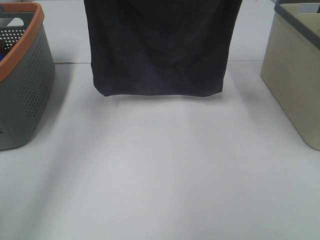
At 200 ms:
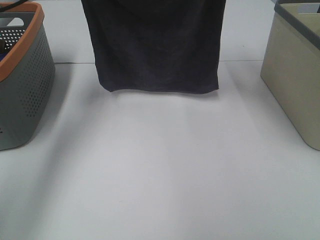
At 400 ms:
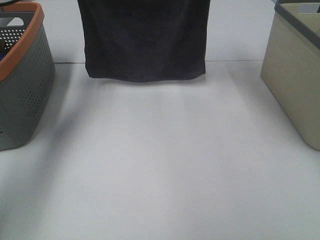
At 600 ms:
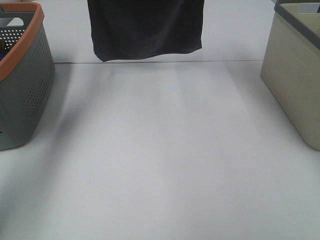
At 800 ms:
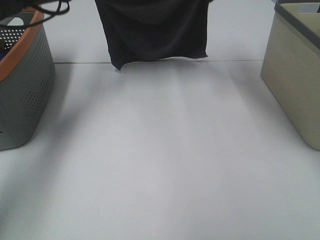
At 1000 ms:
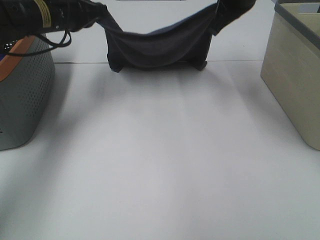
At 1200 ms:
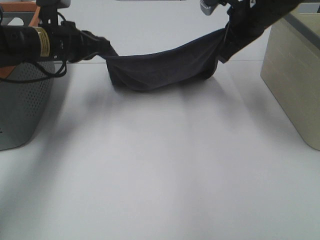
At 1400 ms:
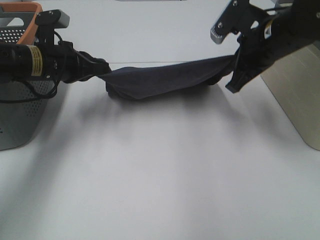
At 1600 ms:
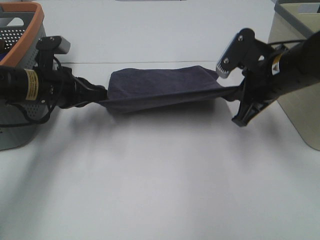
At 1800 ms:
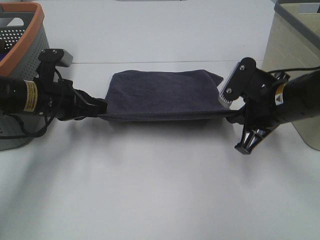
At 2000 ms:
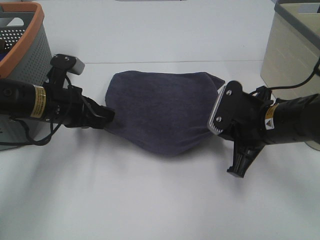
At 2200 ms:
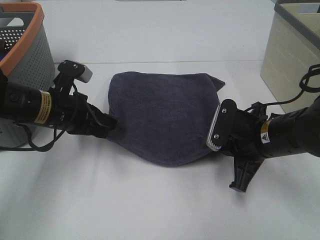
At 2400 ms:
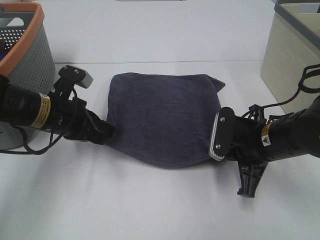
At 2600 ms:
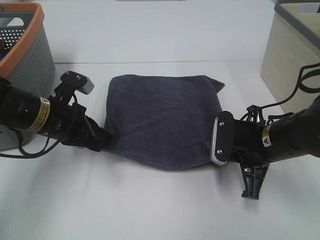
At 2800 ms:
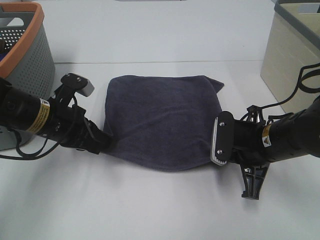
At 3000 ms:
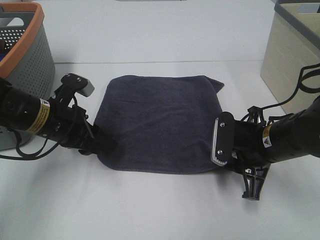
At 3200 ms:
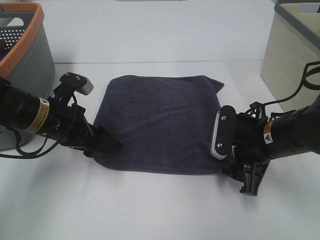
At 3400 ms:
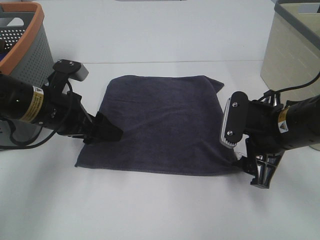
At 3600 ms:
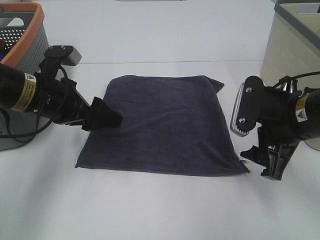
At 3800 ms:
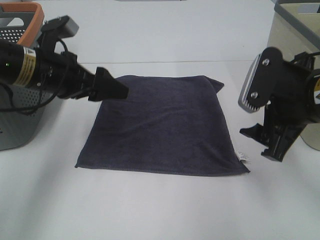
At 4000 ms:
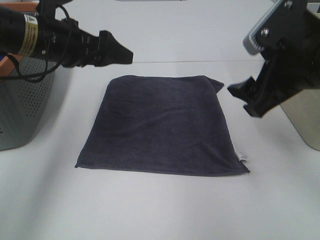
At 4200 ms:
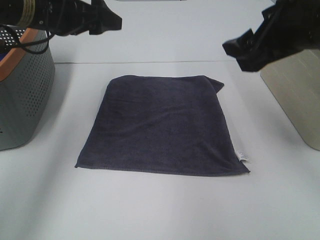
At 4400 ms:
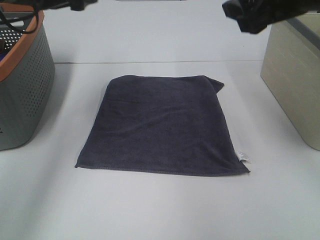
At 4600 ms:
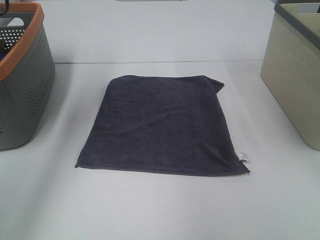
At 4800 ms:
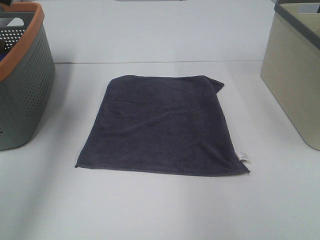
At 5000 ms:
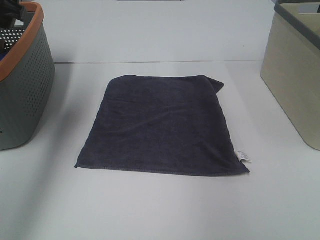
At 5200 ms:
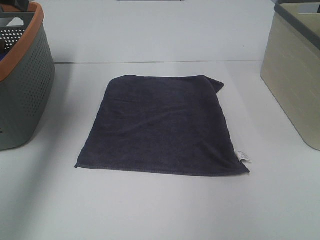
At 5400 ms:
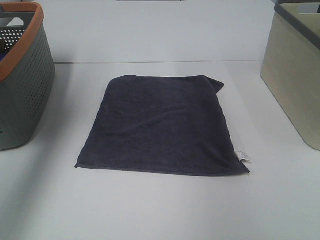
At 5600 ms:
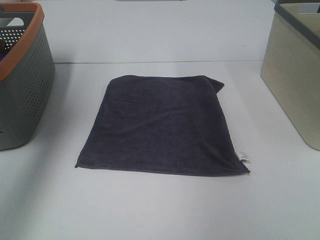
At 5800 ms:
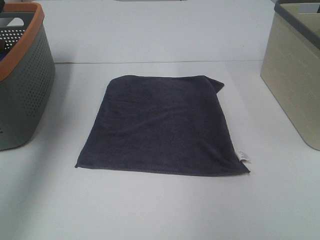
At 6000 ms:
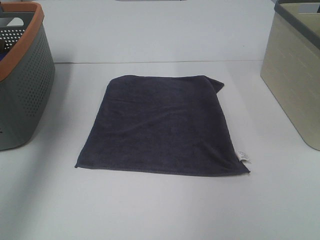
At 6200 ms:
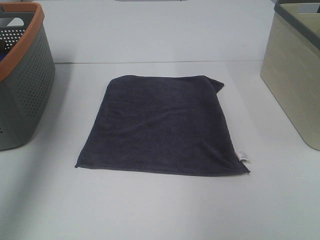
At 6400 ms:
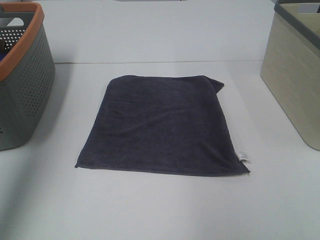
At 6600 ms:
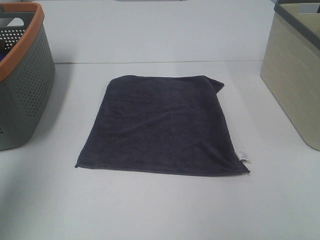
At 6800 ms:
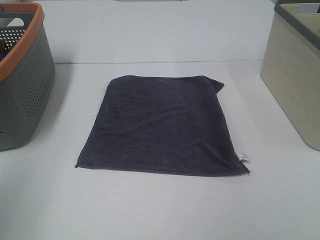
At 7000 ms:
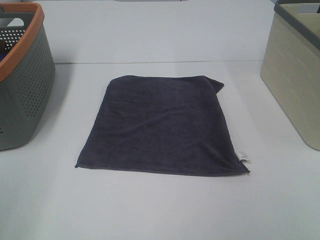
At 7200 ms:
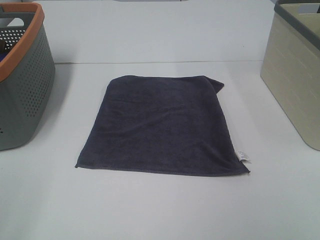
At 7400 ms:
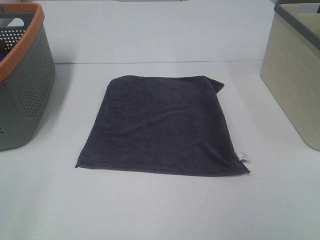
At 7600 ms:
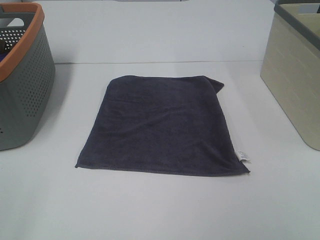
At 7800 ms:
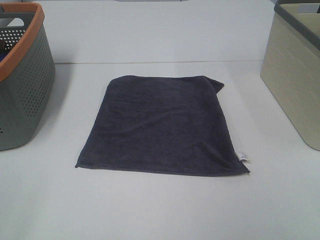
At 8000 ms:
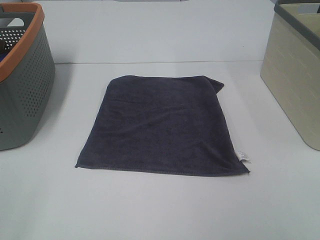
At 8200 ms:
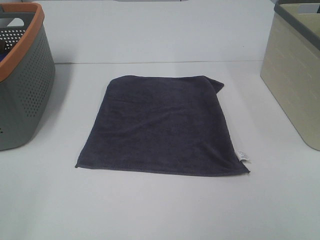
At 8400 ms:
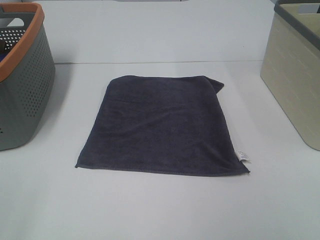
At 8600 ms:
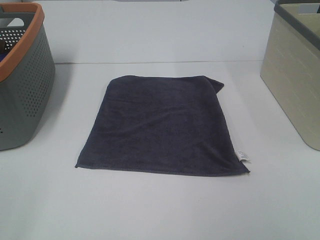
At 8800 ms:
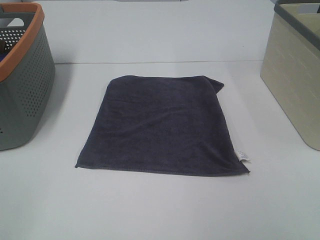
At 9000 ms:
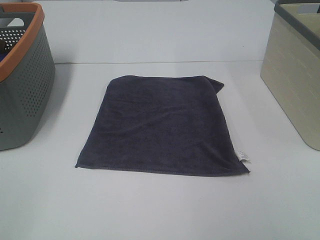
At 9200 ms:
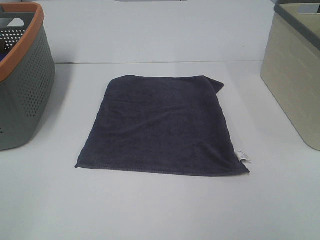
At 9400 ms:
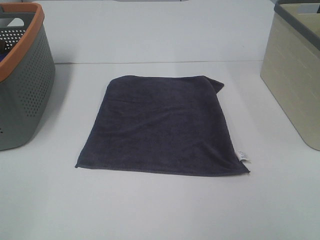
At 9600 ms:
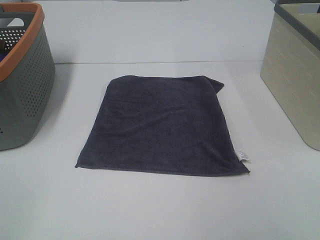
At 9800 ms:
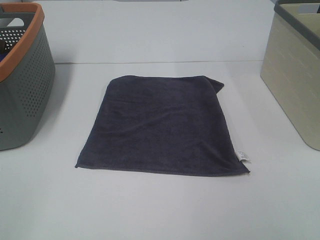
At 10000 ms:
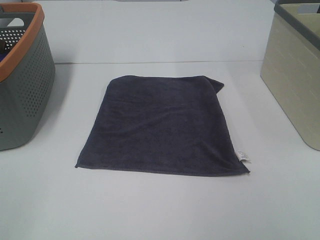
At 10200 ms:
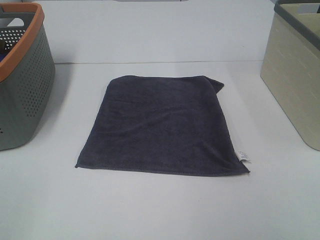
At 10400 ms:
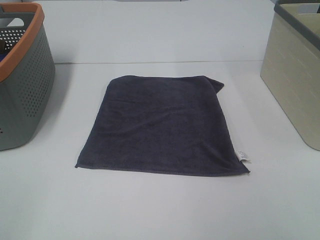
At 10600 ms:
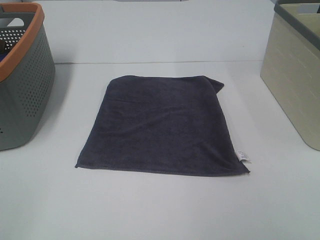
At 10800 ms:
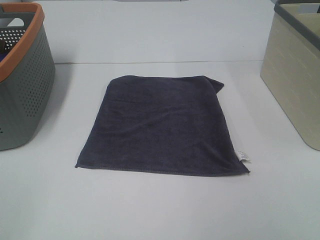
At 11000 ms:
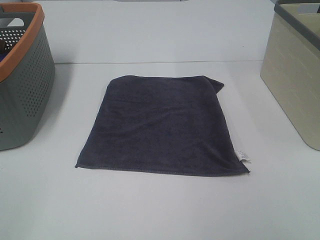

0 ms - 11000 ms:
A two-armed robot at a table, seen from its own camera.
Task of the whole recording: Remove the towel and place it.
0 ms - 1600 ms: The two grippers go about 20 cm downward.
1600 ms - 3200 ms: The left gripper changes place by approximately 5 cm, and opens; the right gripper is displaced downward and backward by approximately 10 cm, and opens.
3200 ms - 4800 ms: The left gripper moves upward and to the left, about 20 cm, while the right gripper goes approximately 25 cm upward.
4800 ms - 6200 ms: The left gripper goes about 10 cm upward and backward.
6200 ms - 7800 ms: The left gripper shifts about 30 cm backward.
9400 ms - 11000 ms: Both grippers stay put.

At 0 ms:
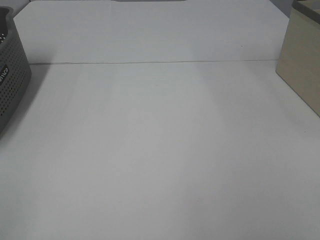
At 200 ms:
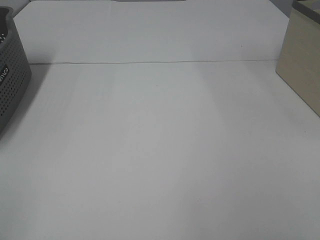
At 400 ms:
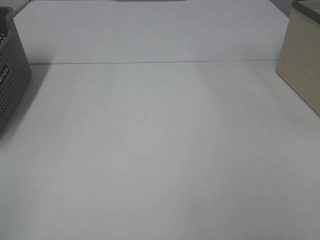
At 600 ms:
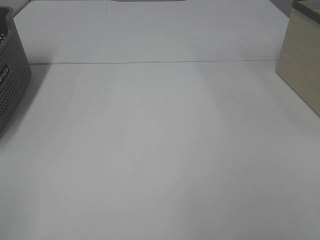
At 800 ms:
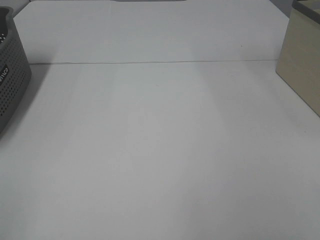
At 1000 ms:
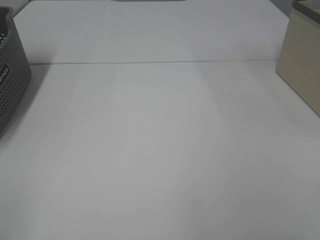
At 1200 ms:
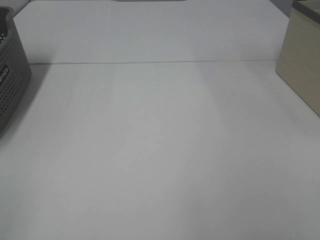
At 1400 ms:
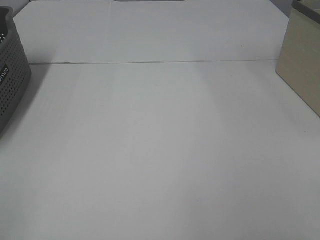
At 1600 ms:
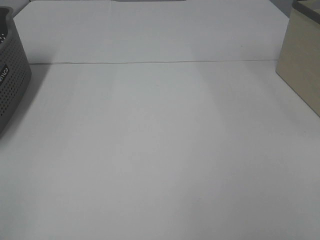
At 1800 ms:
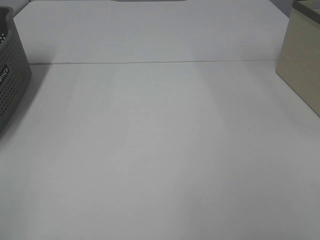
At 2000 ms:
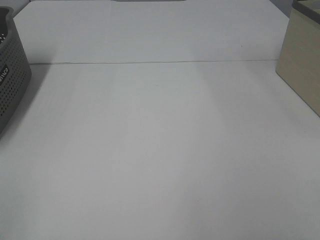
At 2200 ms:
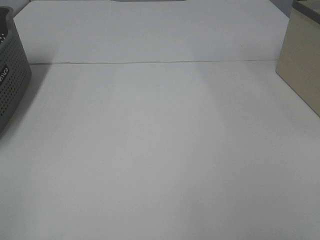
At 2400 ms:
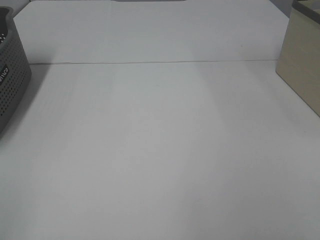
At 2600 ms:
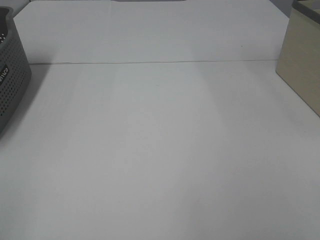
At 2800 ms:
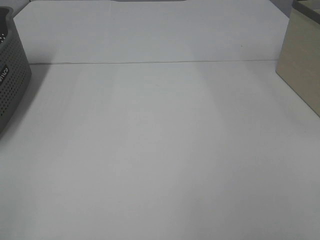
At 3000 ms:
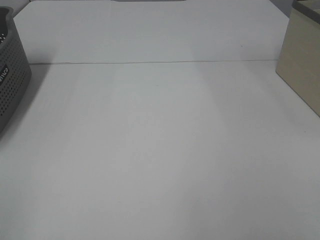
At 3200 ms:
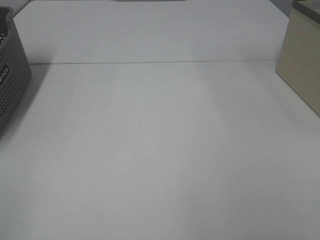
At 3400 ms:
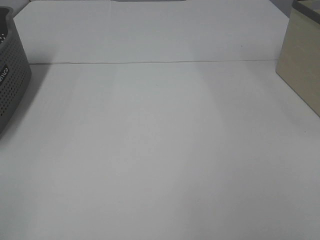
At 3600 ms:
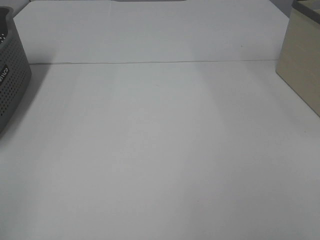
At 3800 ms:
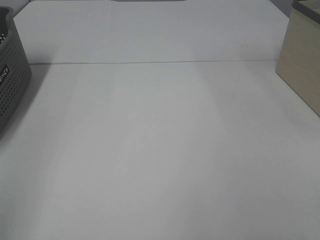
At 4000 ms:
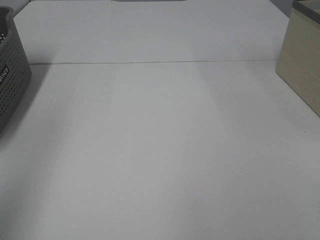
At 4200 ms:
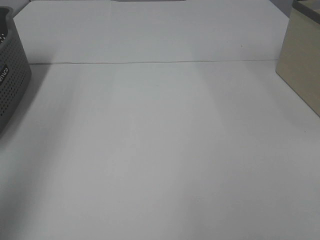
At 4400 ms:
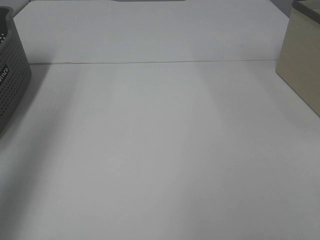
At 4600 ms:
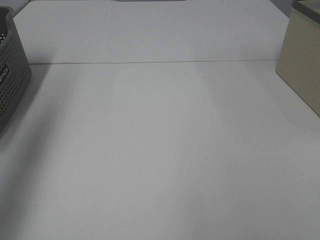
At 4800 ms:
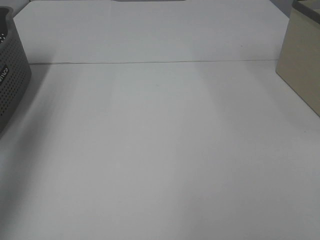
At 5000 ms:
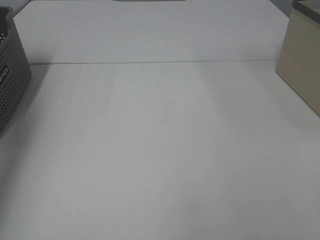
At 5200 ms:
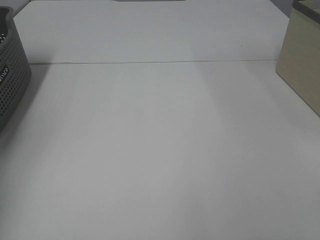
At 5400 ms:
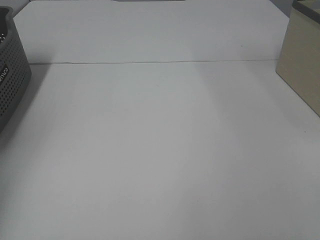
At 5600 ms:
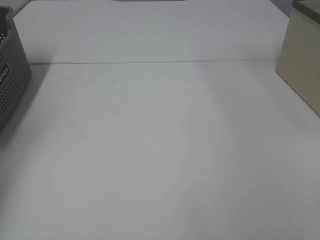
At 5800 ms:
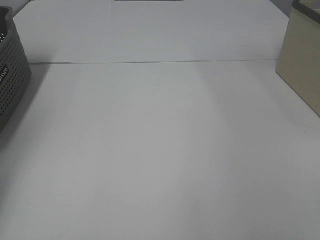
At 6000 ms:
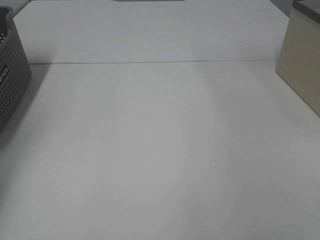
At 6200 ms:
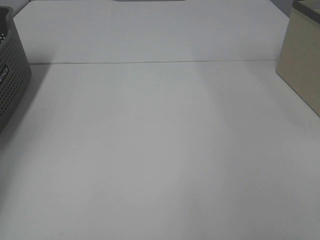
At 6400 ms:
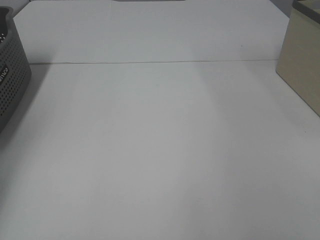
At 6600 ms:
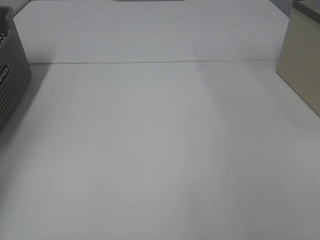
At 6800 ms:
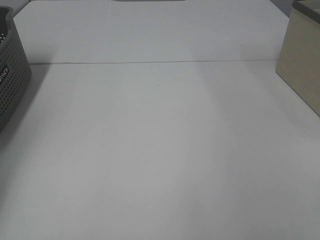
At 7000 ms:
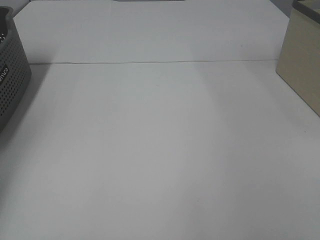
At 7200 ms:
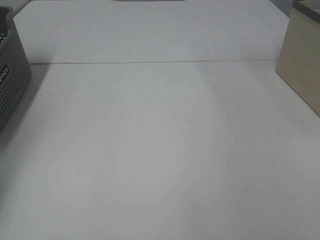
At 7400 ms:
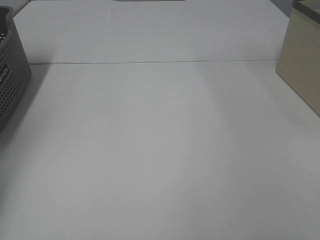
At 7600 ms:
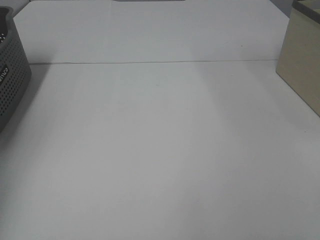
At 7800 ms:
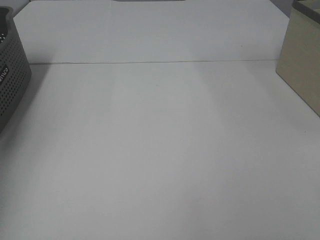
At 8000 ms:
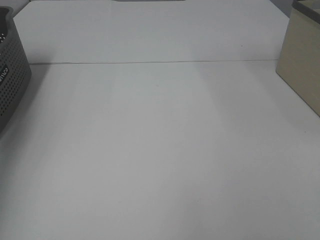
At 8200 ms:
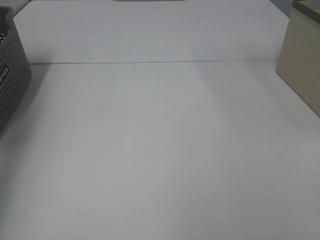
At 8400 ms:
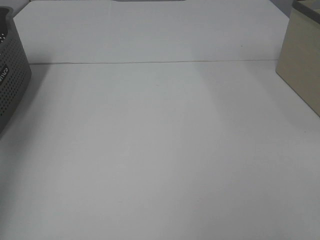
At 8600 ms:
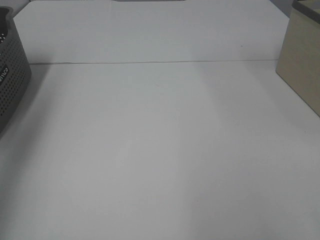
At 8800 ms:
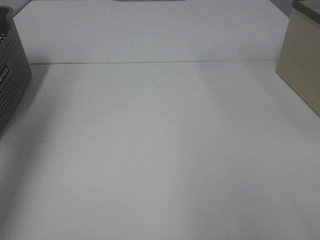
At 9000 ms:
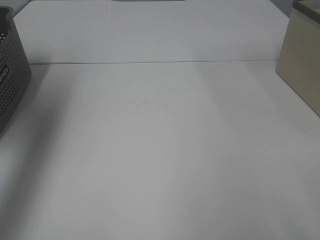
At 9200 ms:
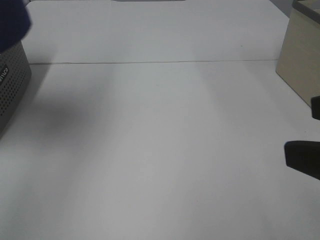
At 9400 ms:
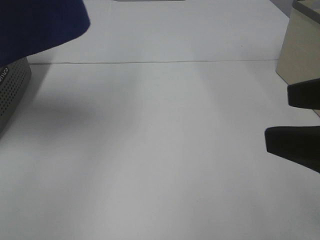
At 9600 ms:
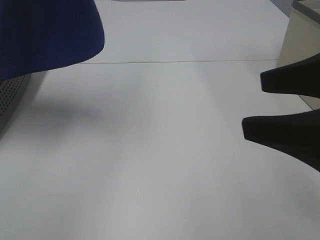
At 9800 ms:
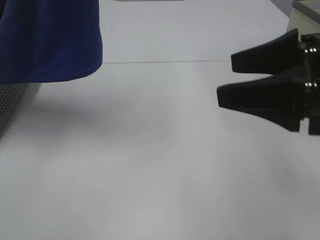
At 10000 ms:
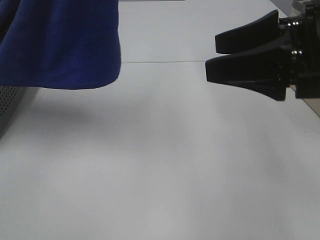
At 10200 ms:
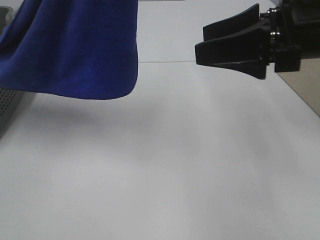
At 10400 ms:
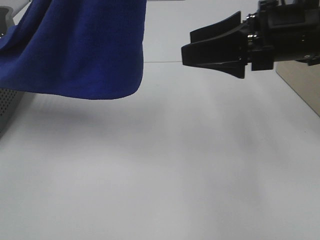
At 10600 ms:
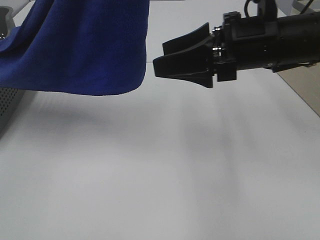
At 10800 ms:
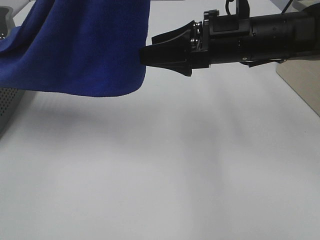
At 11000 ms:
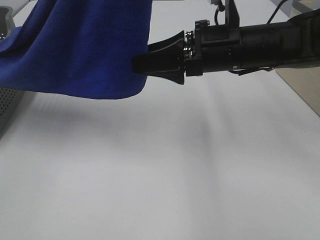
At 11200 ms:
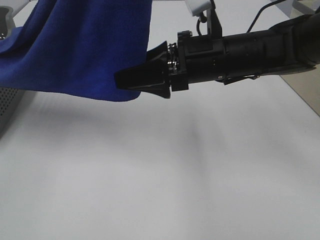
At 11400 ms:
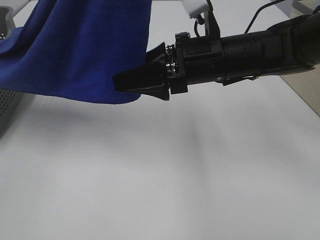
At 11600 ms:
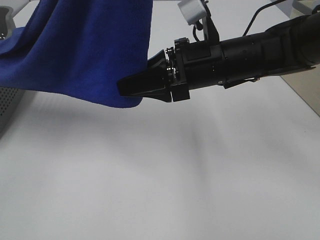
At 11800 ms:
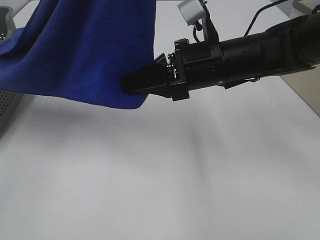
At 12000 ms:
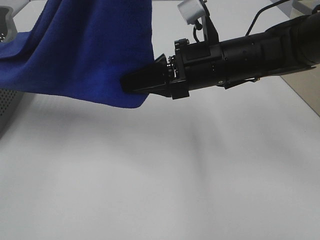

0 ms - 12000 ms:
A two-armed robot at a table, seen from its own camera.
Task of the whole recording: Remove the towel and place it.
0 ms - 3000 ms: Neither gripper changes place.
3000 ms - 4400 ms: The left gripper goes approximately 25 cm forward and upward.
4400 ms - 6000 ms: The left gripper moves downward, forward and to the left, approximately 35 cm.
7600 ms - 9000 ms: The left gripper goes approximately 30 cm upward, backward and to the right.
9000 ms - 10400 ms: The left gripper shifts about 20 cm to the right, while the right gripper is displaced forward by roughly 20 cm.
10400 ms - 12000 ms: The right gripper moves to the left and downward, about 10 cm, and closes up.
